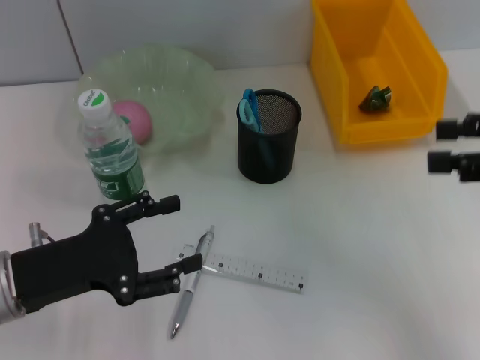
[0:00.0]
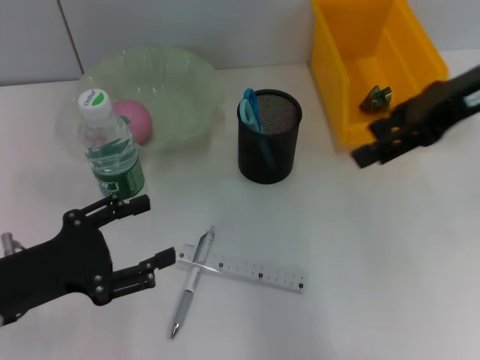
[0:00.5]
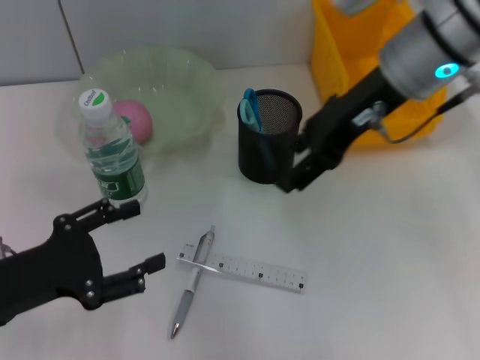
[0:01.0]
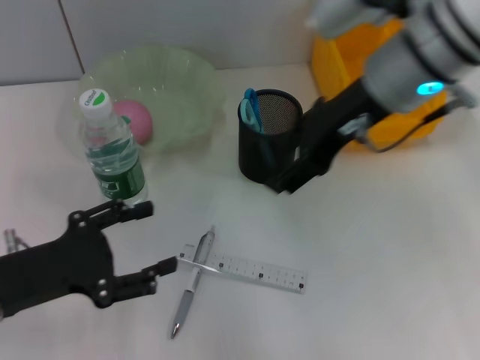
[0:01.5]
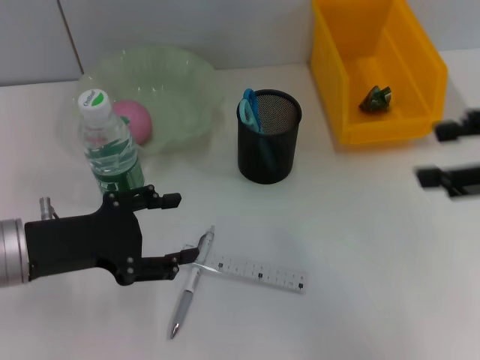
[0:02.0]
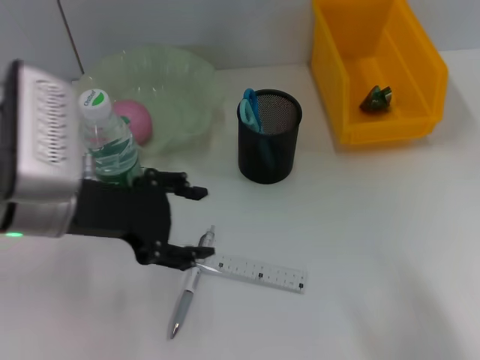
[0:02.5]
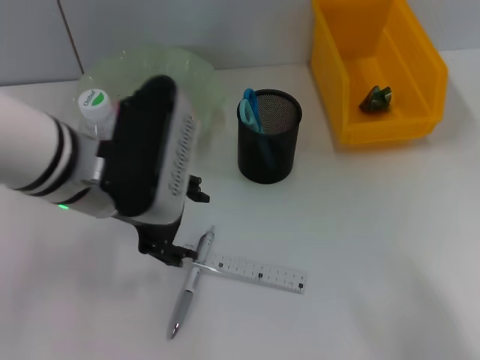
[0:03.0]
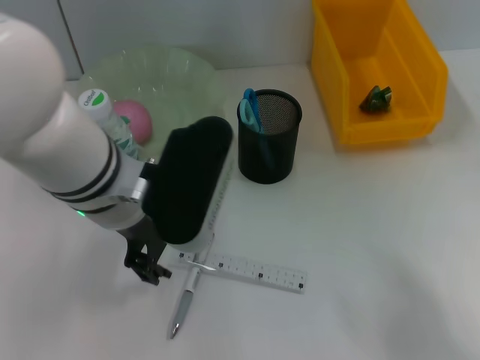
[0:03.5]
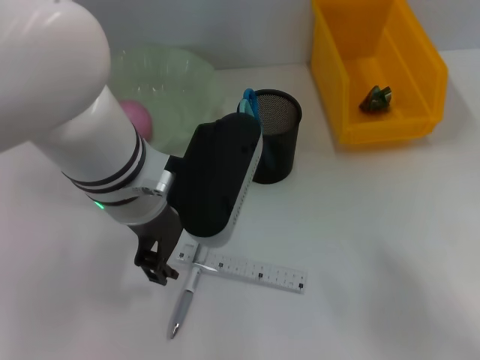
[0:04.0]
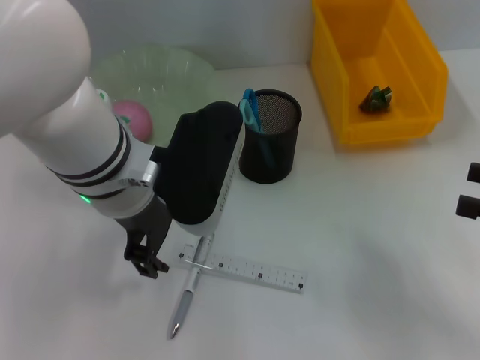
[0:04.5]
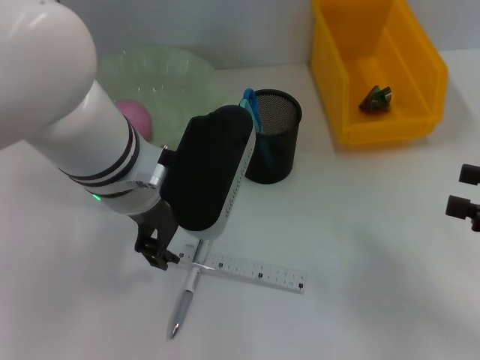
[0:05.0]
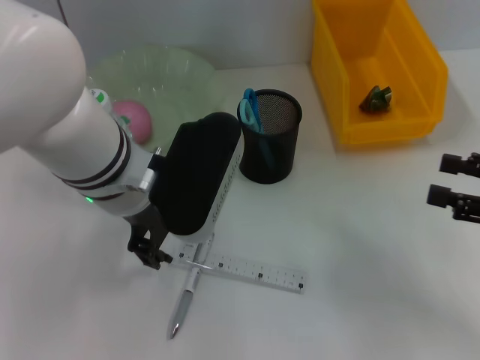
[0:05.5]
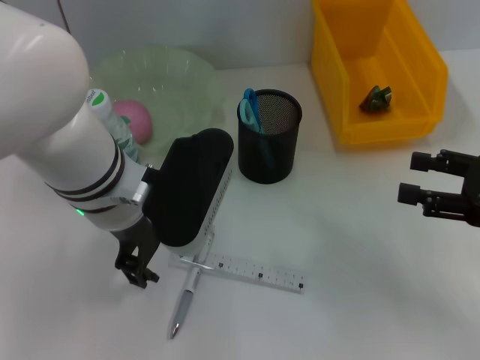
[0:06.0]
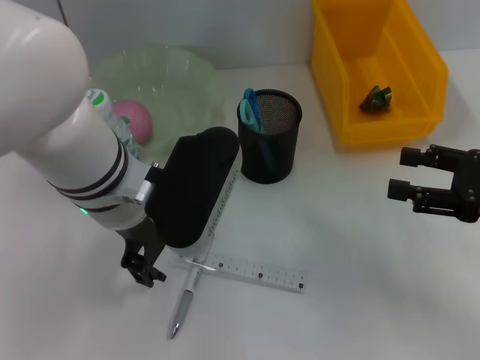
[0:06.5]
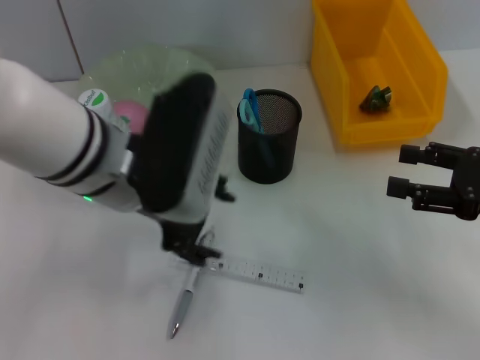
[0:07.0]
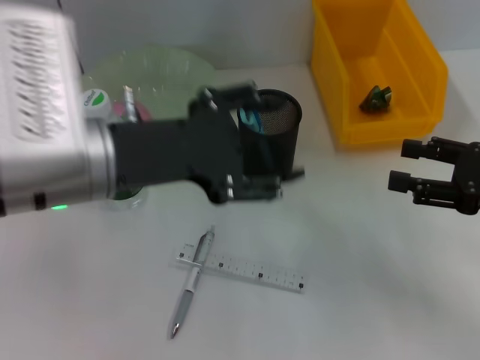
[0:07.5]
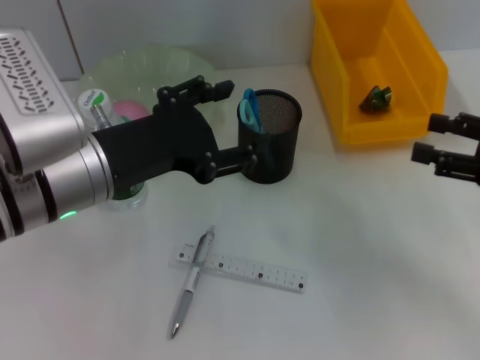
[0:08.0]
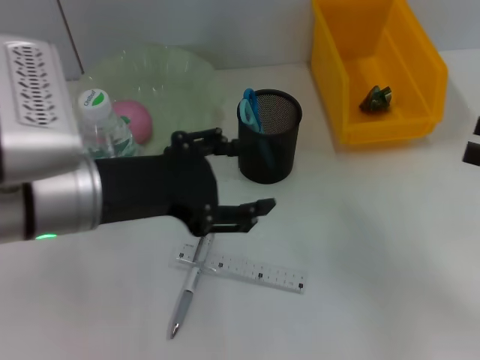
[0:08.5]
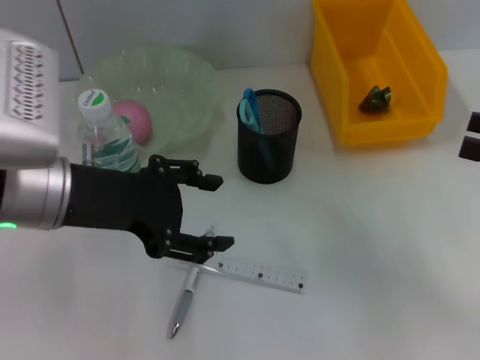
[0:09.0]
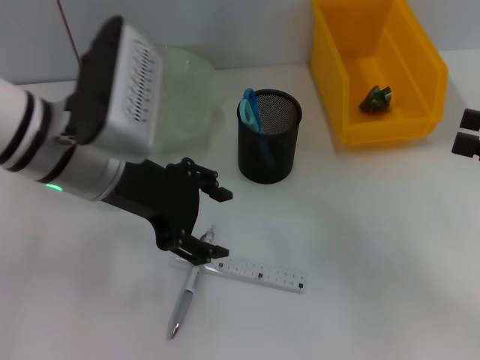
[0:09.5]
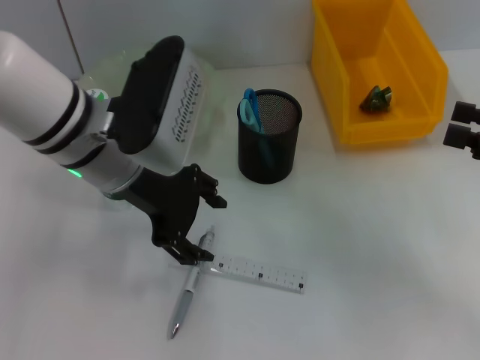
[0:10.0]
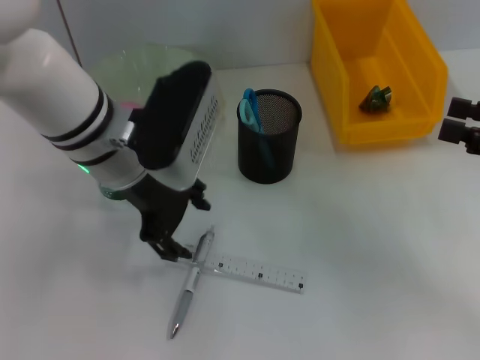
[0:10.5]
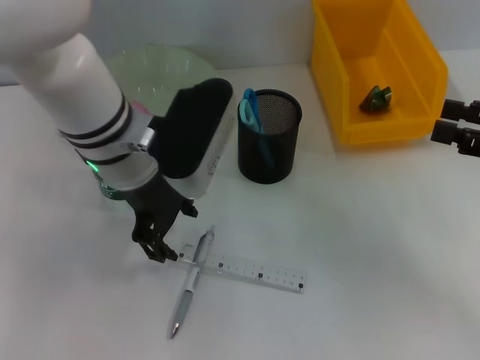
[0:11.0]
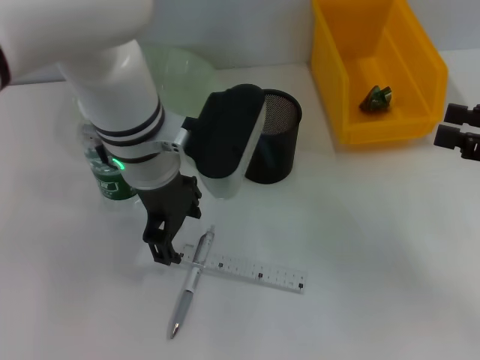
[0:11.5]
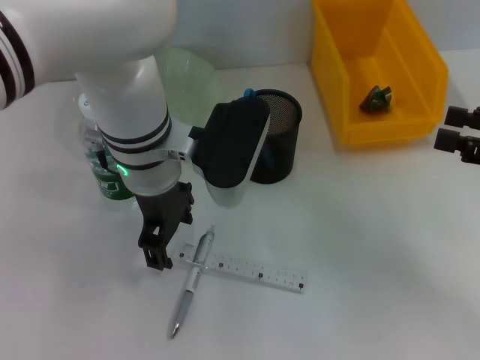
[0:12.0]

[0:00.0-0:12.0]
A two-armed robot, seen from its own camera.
0:00.0 to 0:02.0: The right gripper reaches about 20 cm to the left, then returns.
0:02.0 to 0:04.0: The left gripper travels to the right and upward by roughly 15 cm. Meanwhile the right gripper moves downward, to the right and backward, roughly 15 cm.
0:04.0 to 0:06.0: The right gripper shifts roughly 10 cm forward and to the left.
0:06.0 to 0:08.0: The left gripper is displaced to the left by approximately 5 cm.
0:08.0 to 0:10.0: The left gripper goes roughly 5 cm forward.
0:10.0 to 0:12.0: The left gripper goes roughly 5 cm to the right.

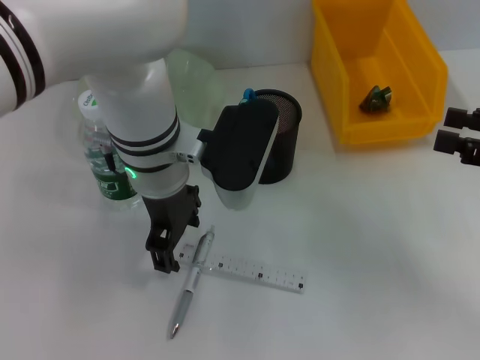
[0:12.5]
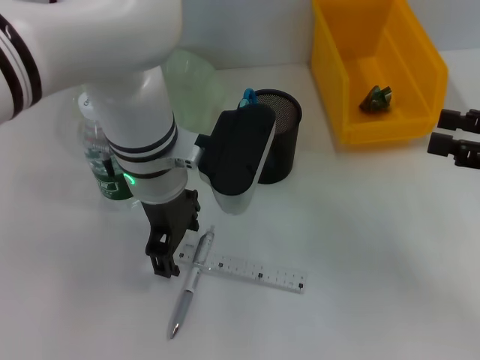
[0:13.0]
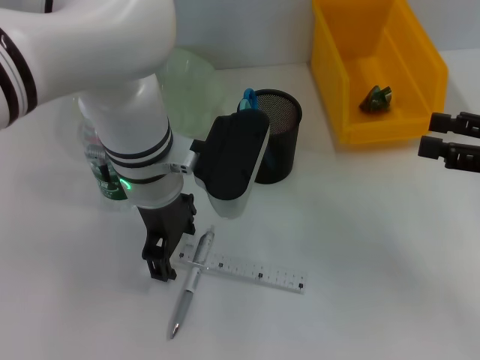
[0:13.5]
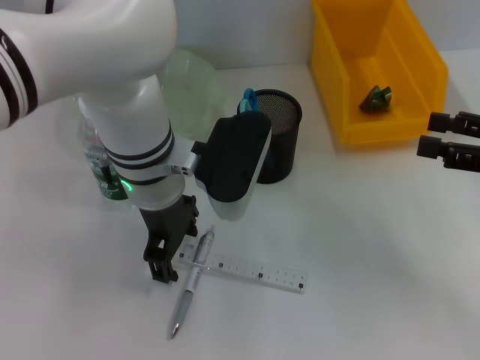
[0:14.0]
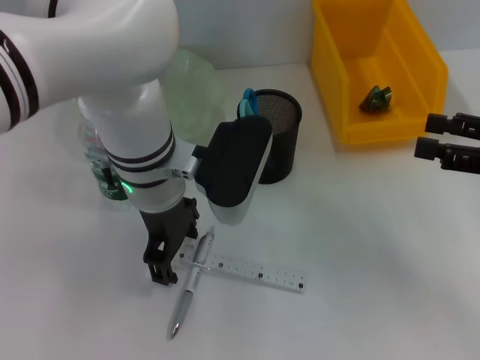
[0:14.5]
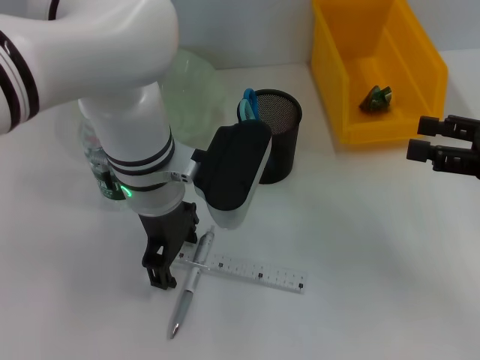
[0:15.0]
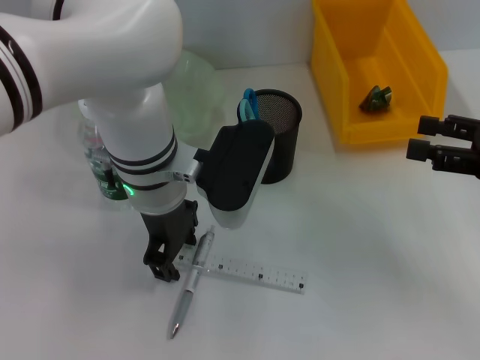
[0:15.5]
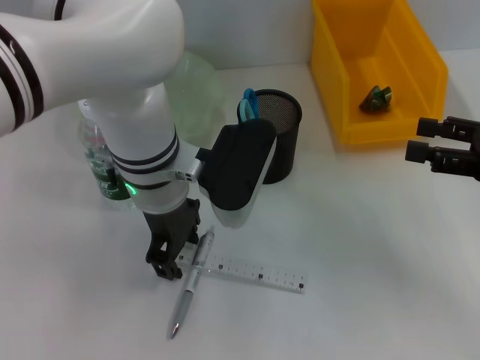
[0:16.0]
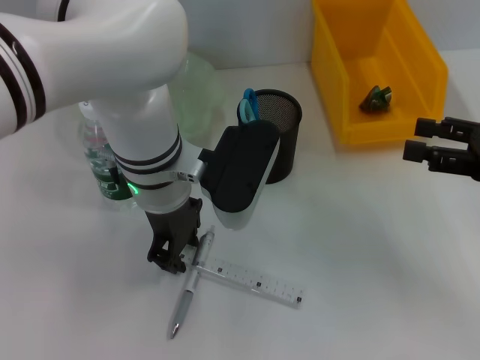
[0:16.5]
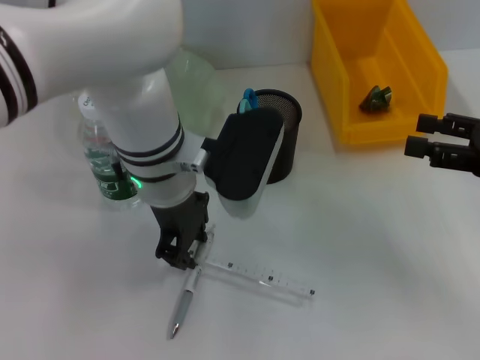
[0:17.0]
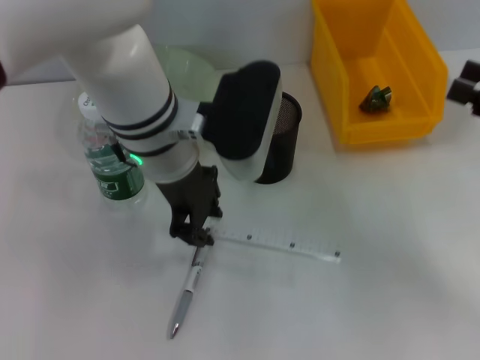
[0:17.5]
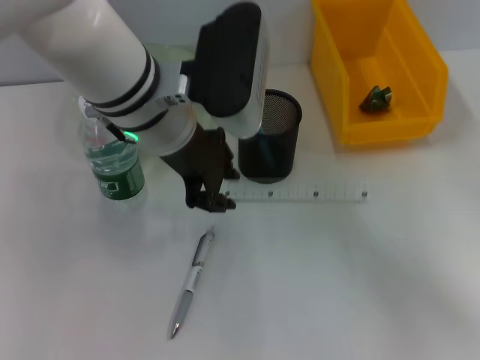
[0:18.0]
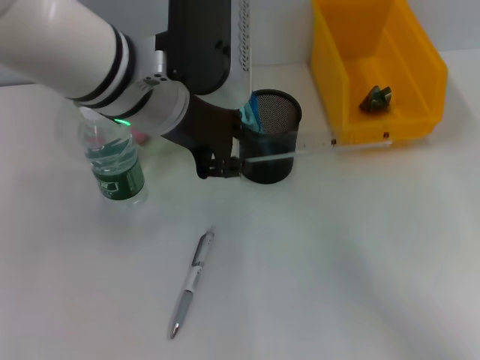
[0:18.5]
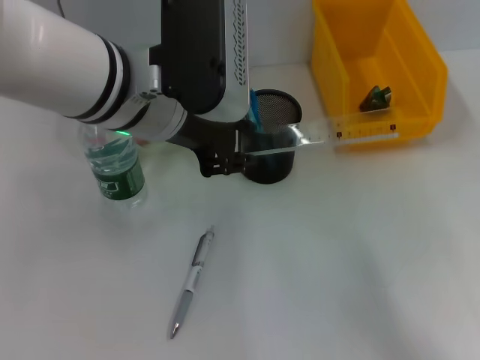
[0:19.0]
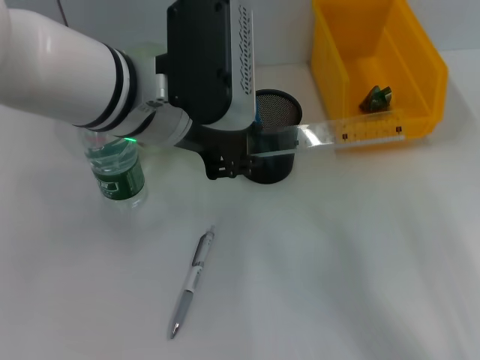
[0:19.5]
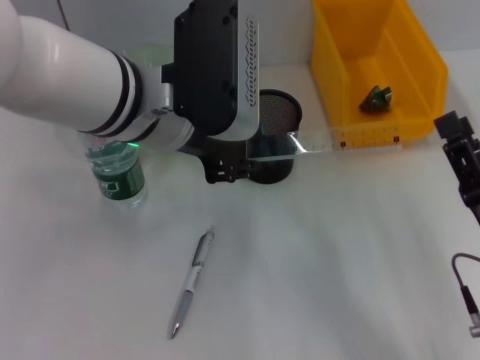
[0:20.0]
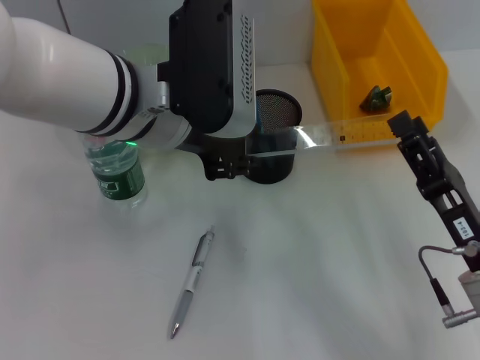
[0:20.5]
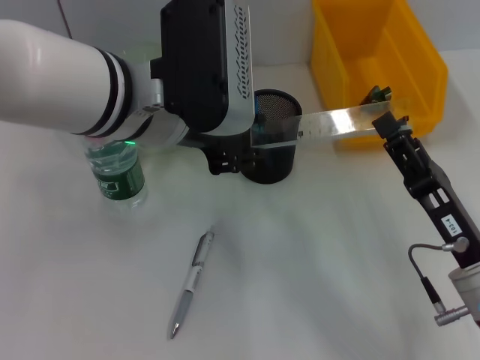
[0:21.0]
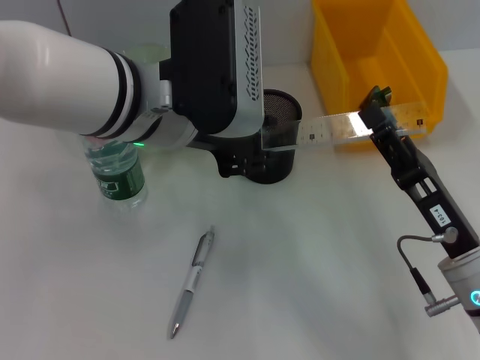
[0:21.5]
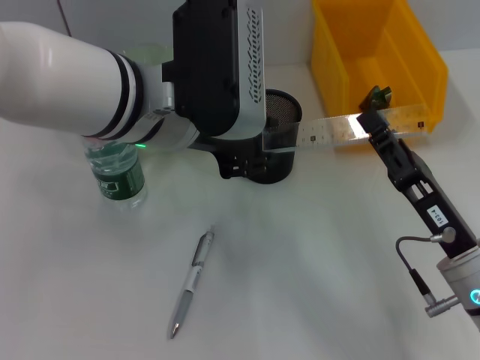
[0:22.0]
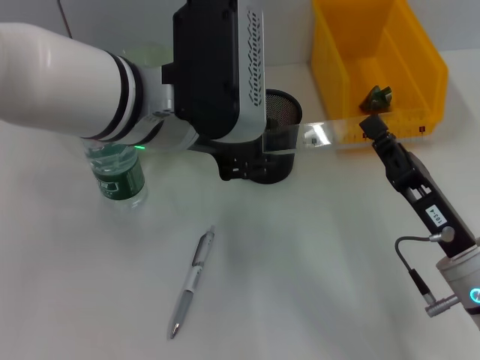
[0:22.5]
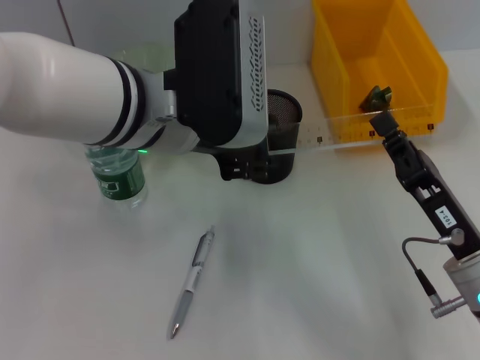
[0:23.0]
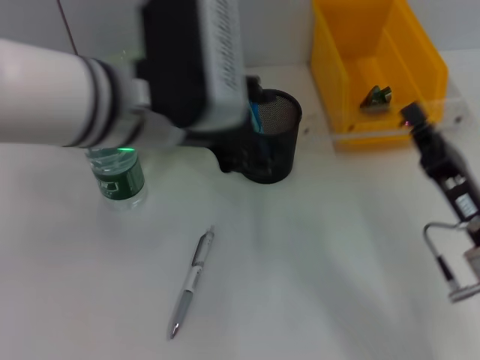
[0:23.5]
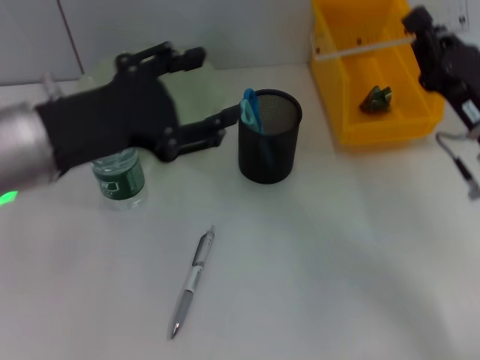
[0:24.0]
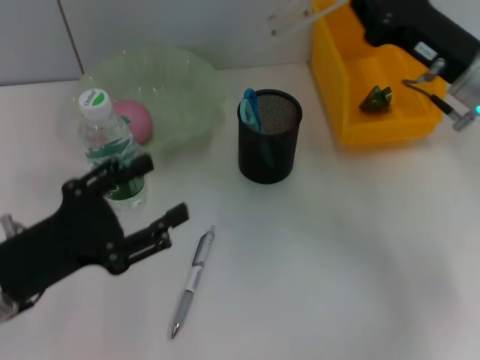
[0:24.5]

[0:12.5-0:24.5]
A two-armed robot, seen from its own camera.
Step, 0:12.5 to 0:16.5: Grab the ruler with the left hand.
Step, 0:17.0 to 0:22.5: Pass the ruler from the left hand to the right hand.
0:12.5 to 0:14.5: The grippers stay close to where they were, moving slightly.
0:14.5 to 0:16.5: The left gripper closes.
0:16.5 to 0:18.5: The left gripper heads upward, covering roughly 10 cm, while the right gripper goes roughly 10 cm backward.
0:18.5 to 0:20.5: The right gripper moves to the left and downward, approximately 10 cm.
0:20.5 to 0:22.5: The right gripper closes up.
0:22.5 to 0:24.5: The right gripper moves forward and upward, some 20 cm. The left gripper heads to the left, downward and backward, covering roughly 25 cm.

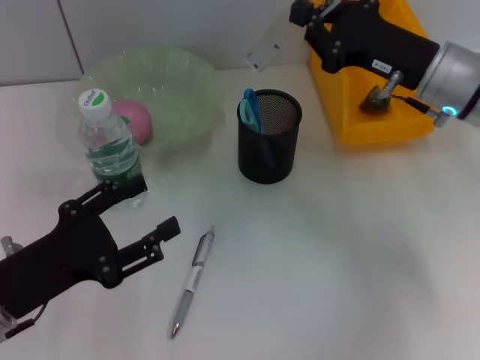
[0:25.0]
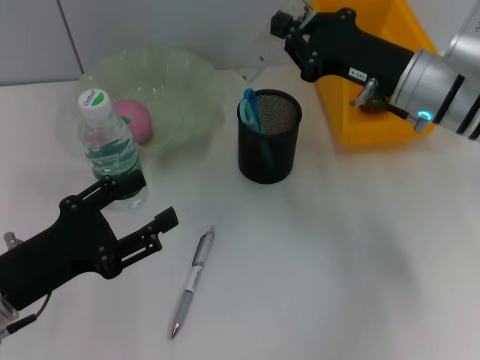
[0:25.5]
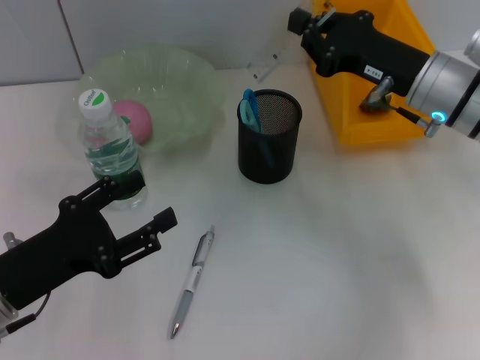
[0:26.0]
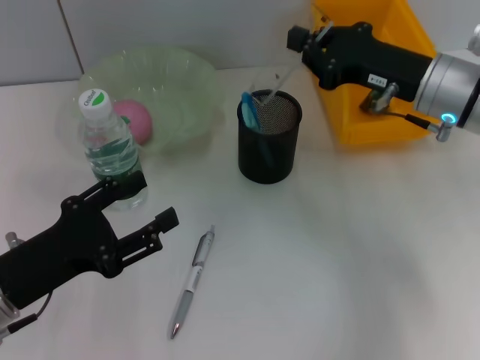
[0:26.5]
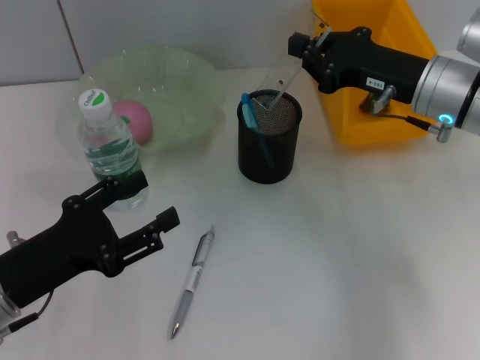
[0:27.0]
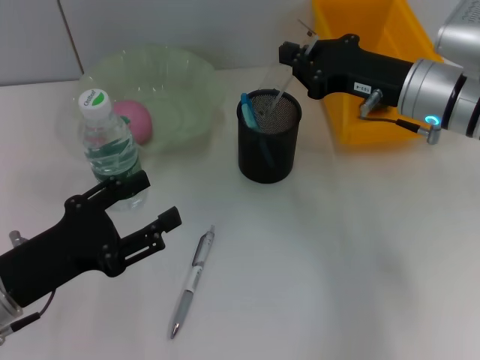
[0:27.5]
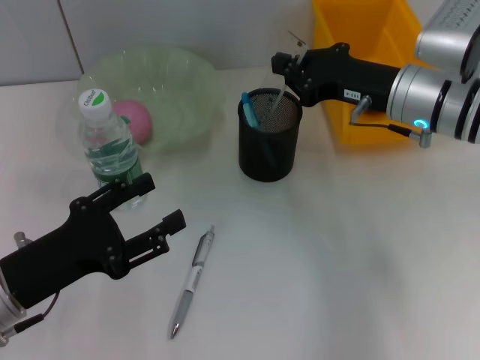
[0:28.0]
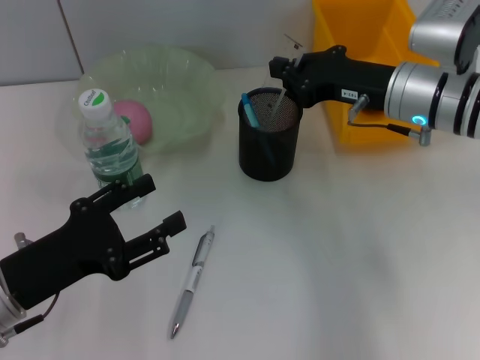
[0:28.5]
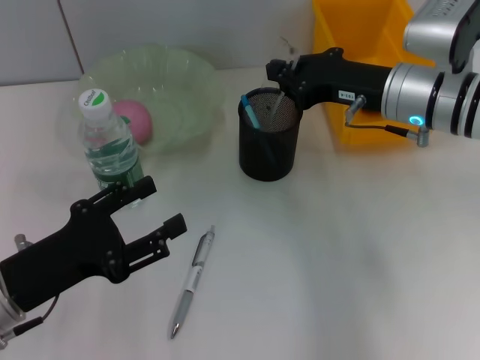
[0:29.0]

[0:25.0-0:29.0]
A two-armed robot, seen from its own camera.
0:25.0 to 0:27.0: The grippers make only small movements.
0:27.0 to 0:29.0: The grippers make only small movements.
